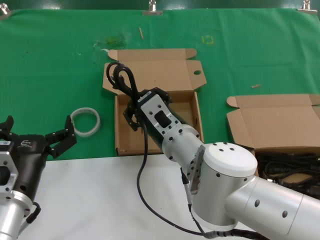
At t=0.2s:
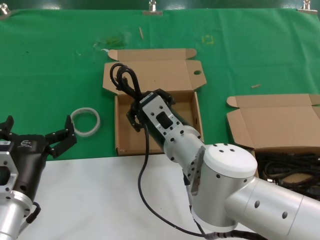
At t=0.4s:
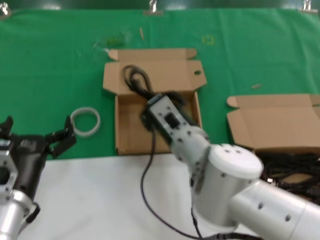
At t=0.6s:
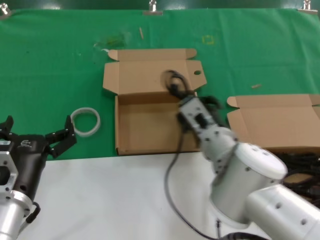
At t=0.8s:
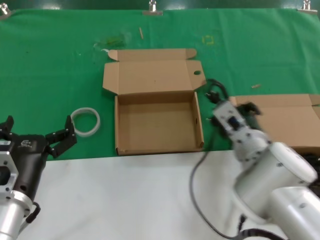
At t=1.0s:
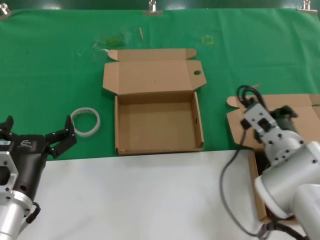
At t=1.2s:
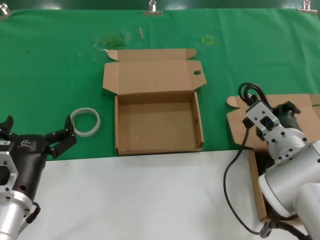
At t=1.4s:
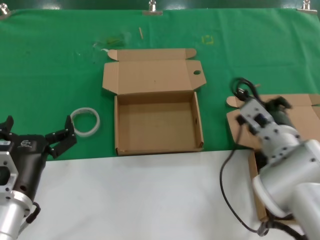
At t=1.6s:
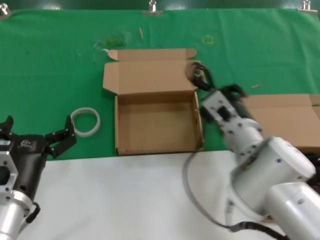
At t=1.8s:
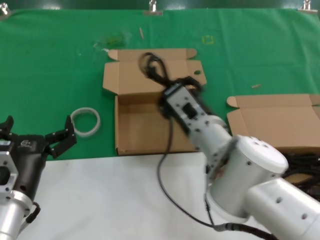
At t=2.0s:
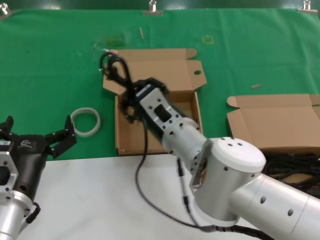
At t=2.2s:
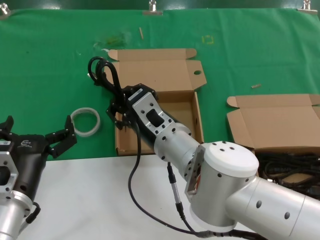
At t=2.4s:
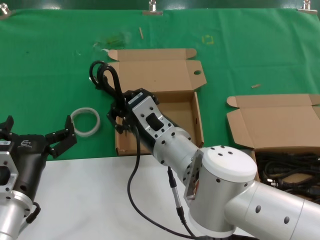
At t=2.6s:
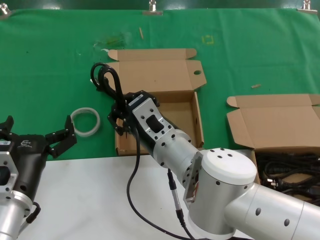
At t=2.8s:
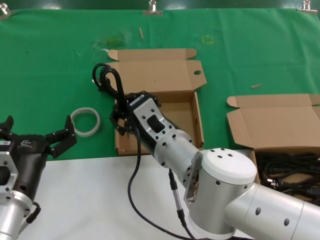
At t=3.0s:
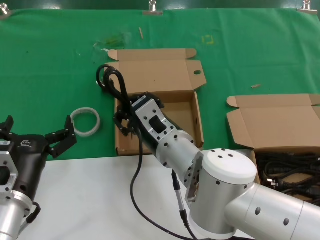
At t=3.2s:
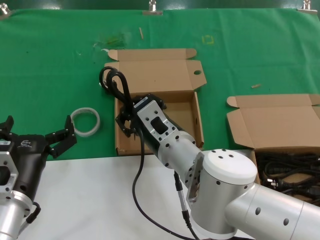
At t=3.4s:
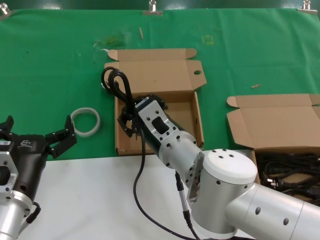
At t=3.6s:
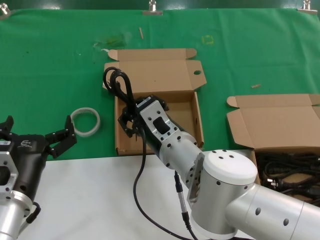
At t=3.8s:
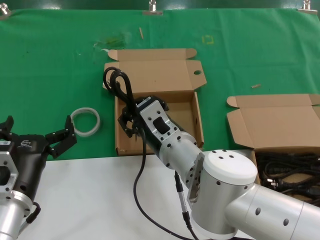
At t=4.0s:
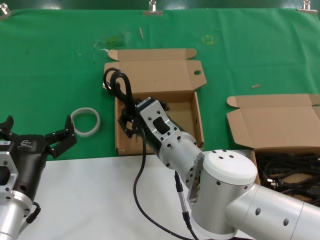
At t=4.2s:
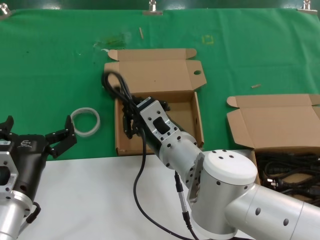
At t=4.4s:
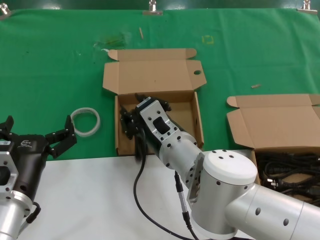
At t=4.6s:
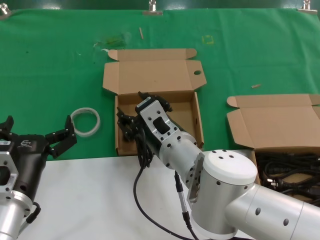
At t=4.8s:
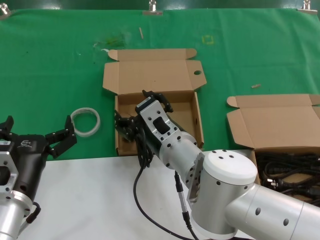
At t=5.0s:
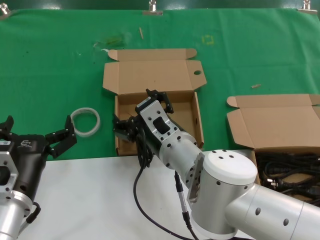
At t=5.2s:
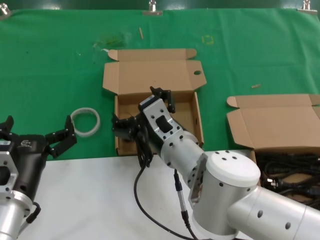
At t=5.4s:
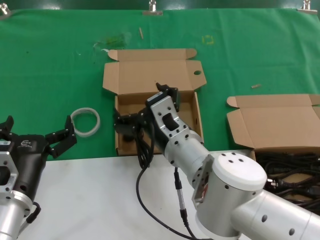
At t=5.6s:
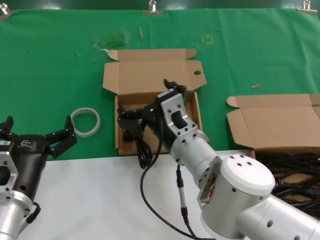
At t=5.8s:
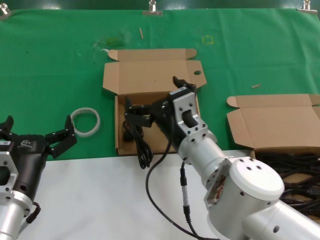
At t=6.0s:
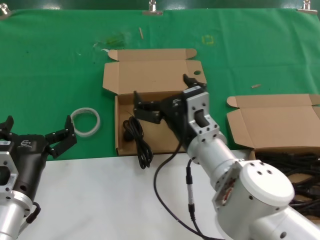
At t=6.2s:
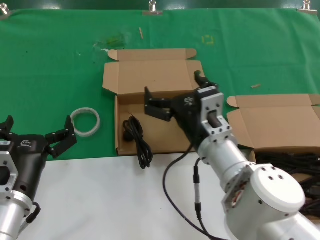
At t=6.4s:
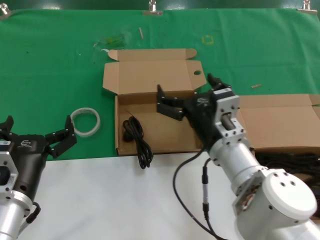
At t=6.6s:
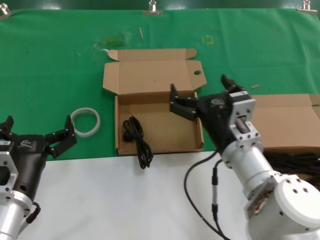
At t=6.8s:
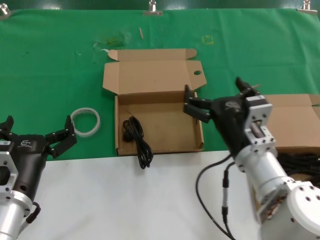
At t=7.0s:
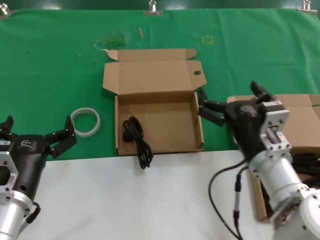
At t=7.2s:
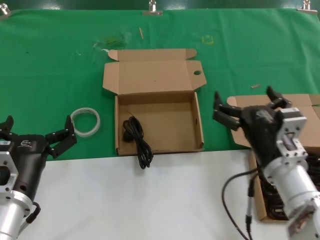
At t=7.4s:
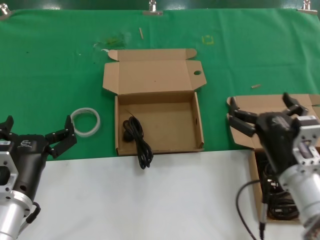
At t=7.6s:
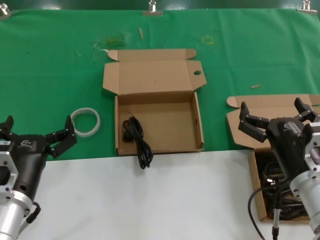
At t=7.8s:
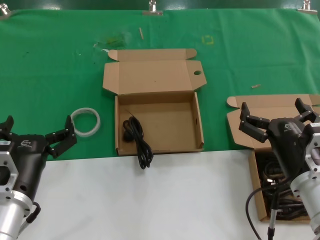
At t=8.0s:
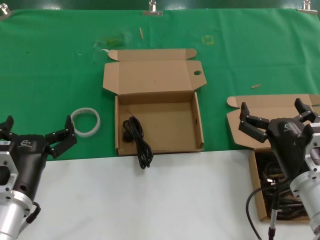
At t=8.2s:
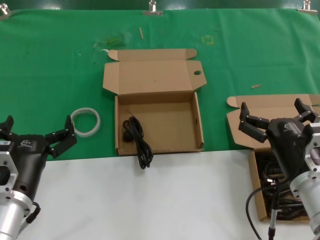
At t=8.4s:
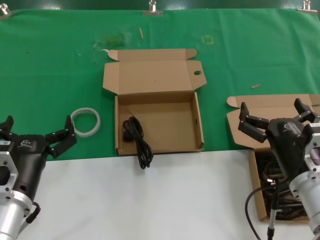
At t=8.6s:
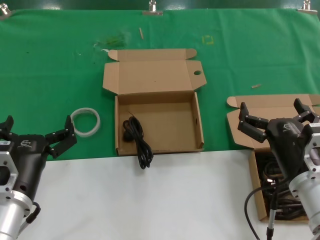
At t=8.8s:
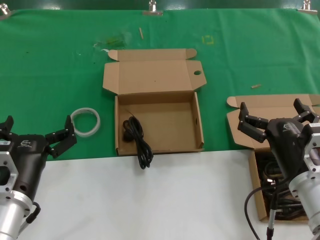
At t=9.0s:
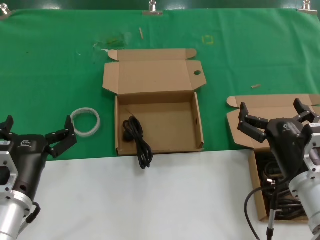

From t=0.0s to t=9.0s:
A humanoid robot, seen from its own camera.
Task of the whole recording: take the parts from the box containing them and put them into an empty box.
Step, from t=0.0s to t=4.4s: Place the data cable in the another box.
From t=0.0s to t=1.6s: The right hand goes roughly 10 cm to the right.
From t=1.6s to t=3.0s: The right hand moves to the left, some 10 cm.
From t=3.0s to t=4.4s: Both hands stay about where they are.
From t=4.4s to t=6.0s: There are only small adjustments of the hands.
From t=6.0s to t=7.6s: The right hand moves to the right and backward, approximately 15 cm.
From t=7.6s to t=9.0s: Both hands stay about where they are.
